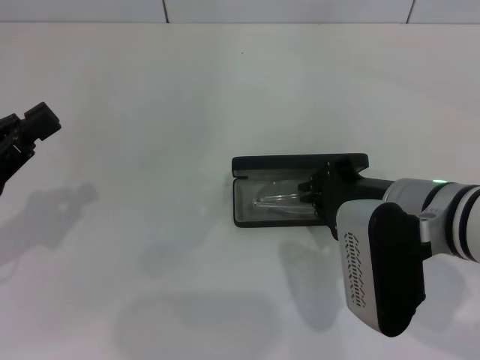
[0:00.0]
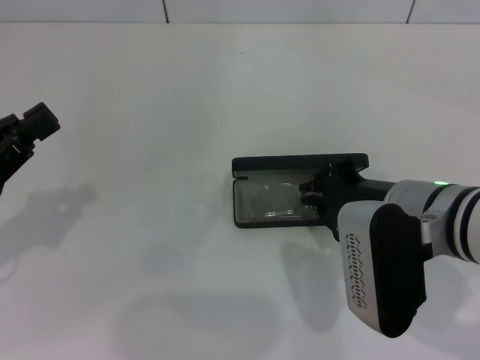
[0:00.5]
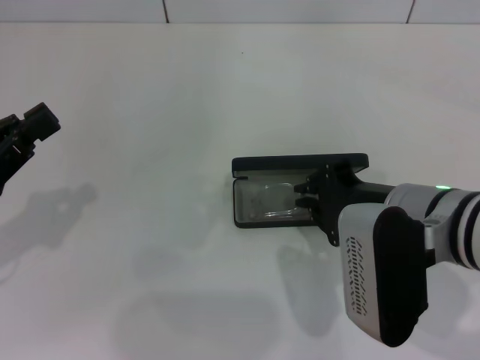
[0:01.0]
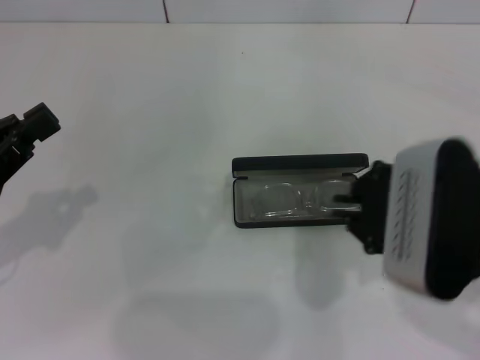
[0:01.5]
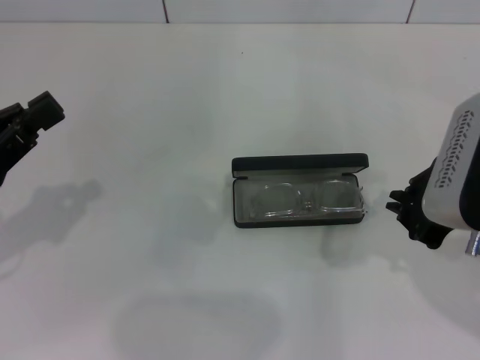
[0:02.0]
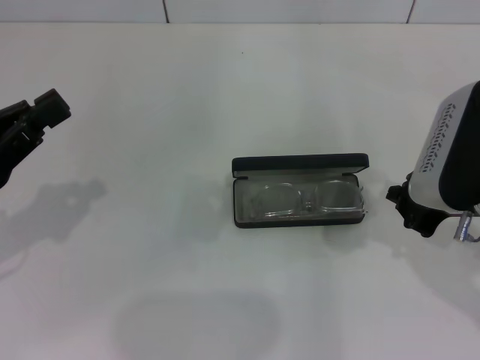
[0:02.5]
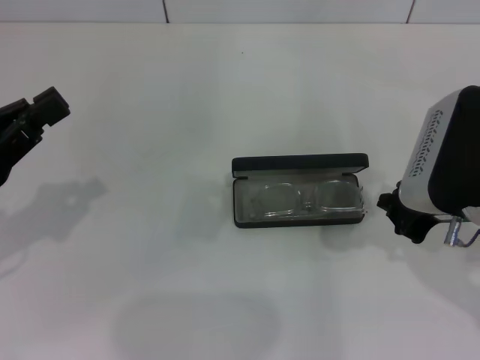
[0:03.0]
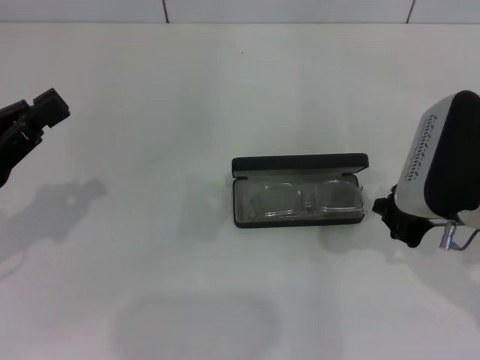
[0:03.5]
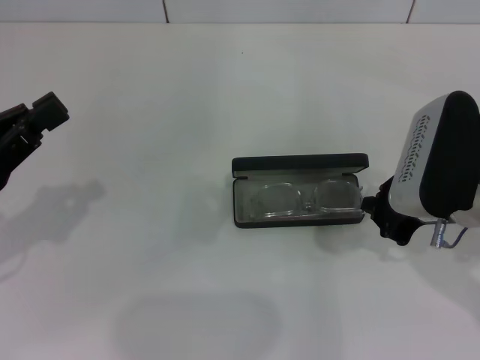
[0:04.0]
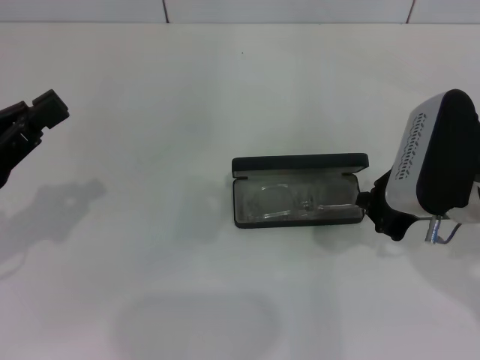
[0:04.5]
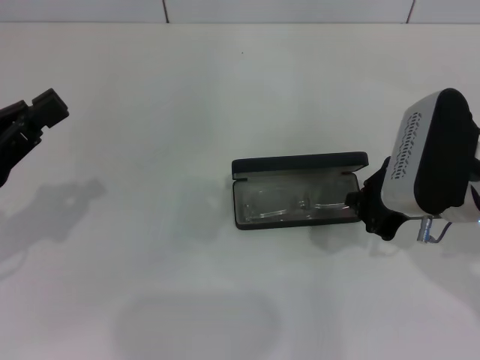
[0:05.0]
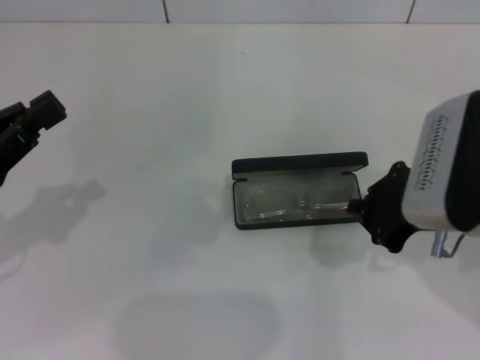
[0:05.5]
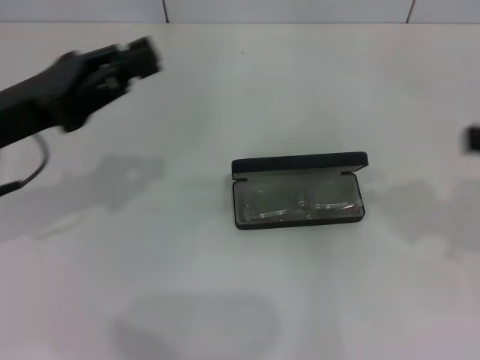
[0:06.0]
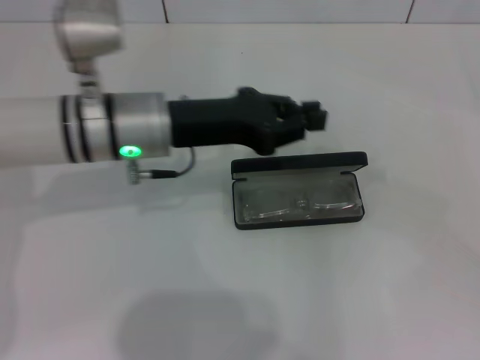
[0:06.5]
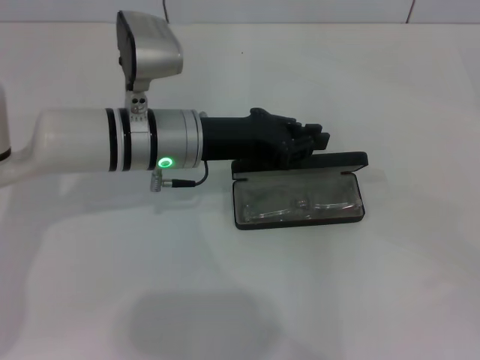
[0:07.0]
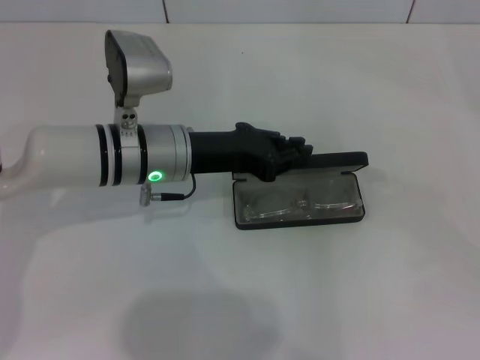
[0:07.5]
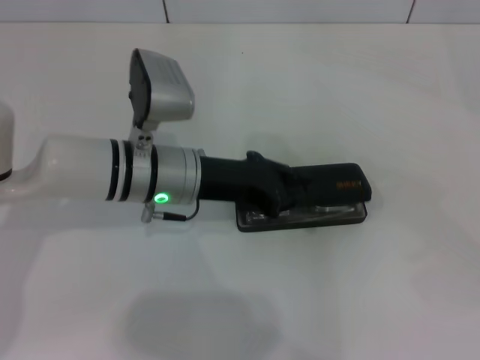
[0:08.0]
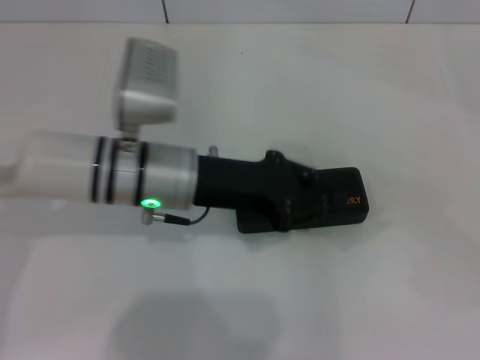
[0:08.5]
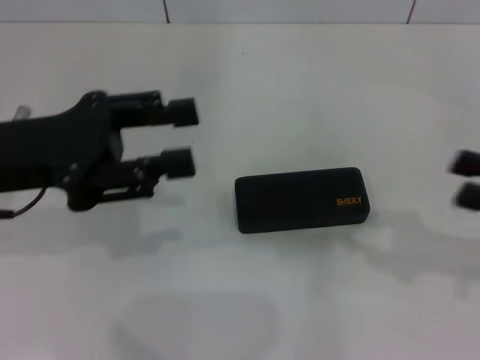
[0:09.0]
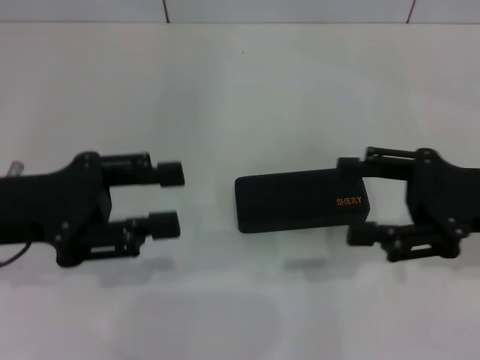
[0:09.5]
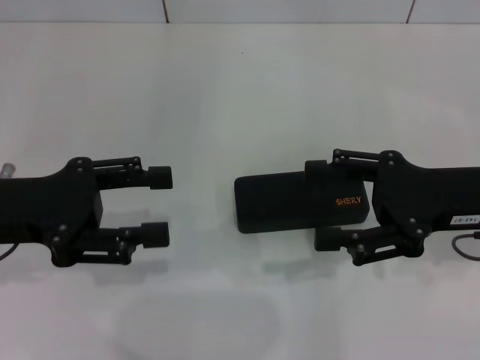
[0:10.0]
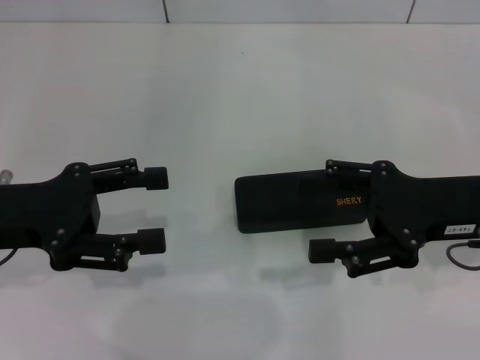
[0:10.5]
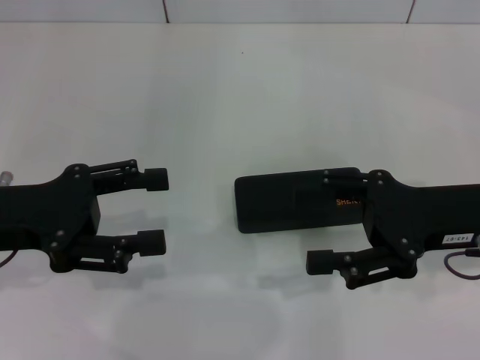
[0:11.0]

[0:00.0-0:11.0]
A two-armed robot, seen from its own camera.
Step, 0:01.5 to 0:08.0: Close the glasses case with your left hand.
0:00.0 to 0:02.0: The right gripper shifts some 10 cm to the right and upward.
0:02.0 to 0:05.5: The grippers make only small movements.
0:05.5 to 0:07.5: The right gripper moves to the right, about 25 cm. The left gripper goes about 25 cm to the right and forward.
0:07.5 to 0:09.0: The right gripper shifts approximately 15 cm to the left and forward, while the left gripper moves to the left, upward and backward, approximately 15 cm.
0:09.0 to 0:11.0: The left gripper changes place by about 5 cm, and opens. The right gripper moves to the left, approximately 10 cm, and opens up.

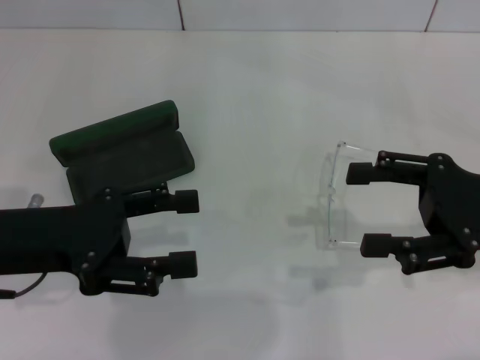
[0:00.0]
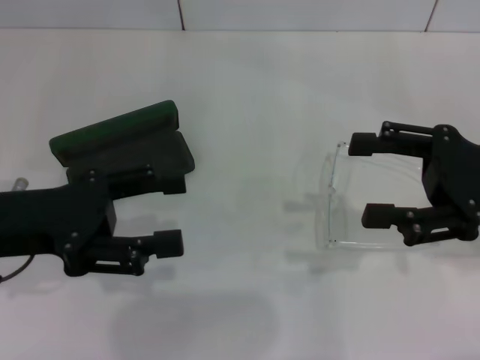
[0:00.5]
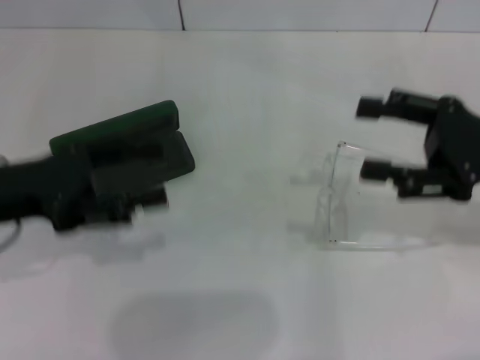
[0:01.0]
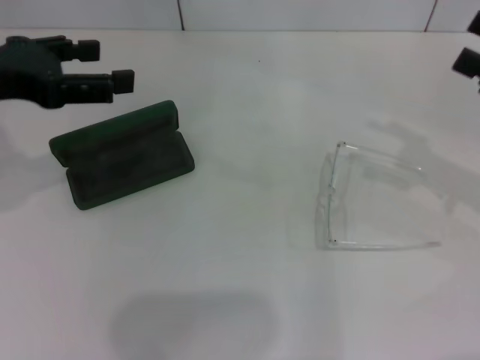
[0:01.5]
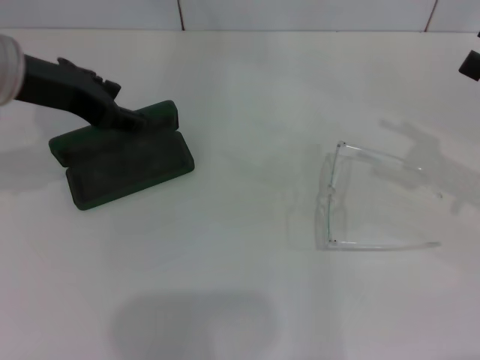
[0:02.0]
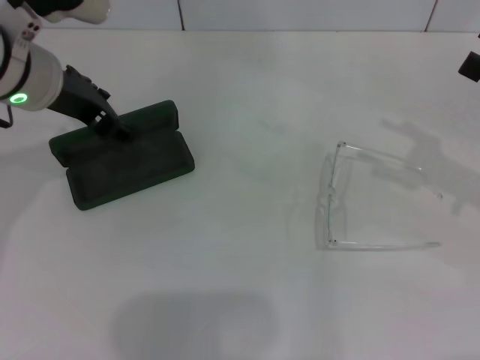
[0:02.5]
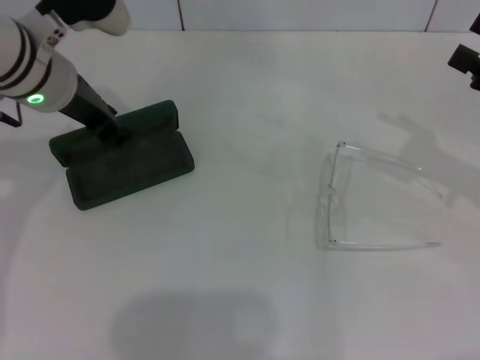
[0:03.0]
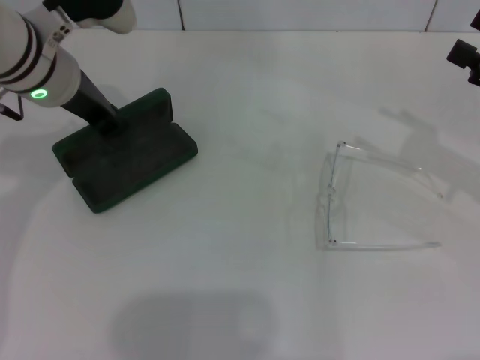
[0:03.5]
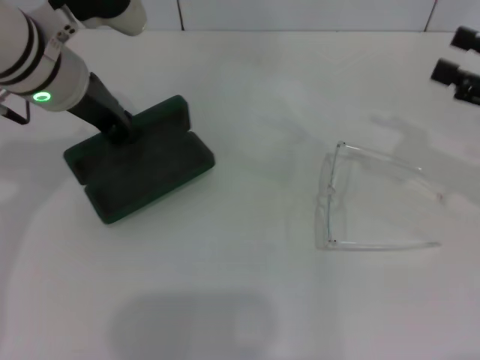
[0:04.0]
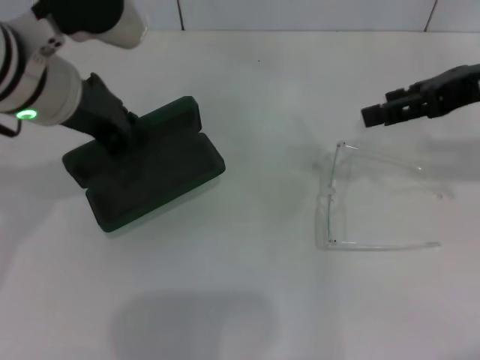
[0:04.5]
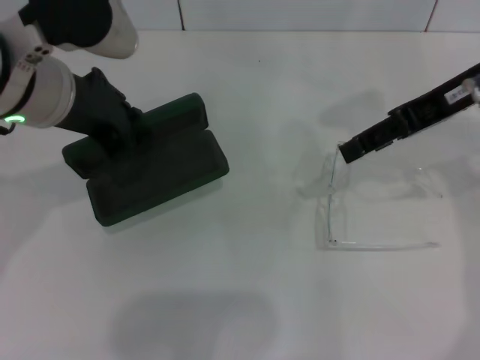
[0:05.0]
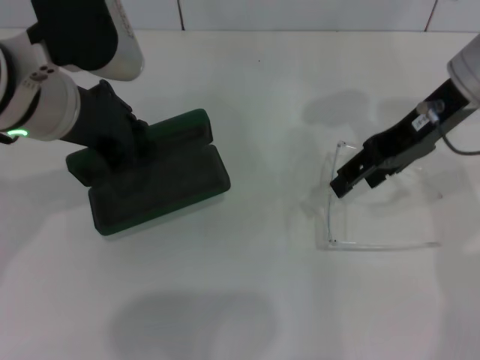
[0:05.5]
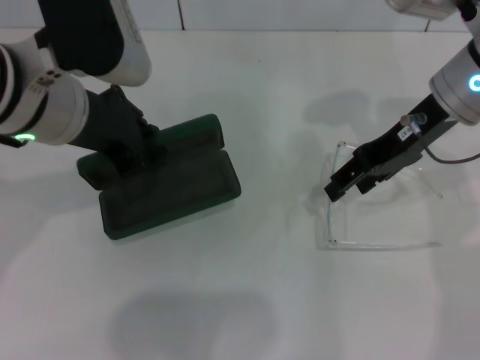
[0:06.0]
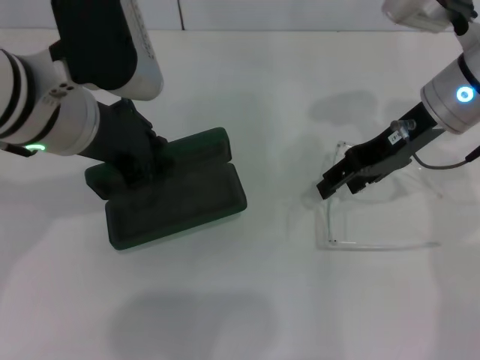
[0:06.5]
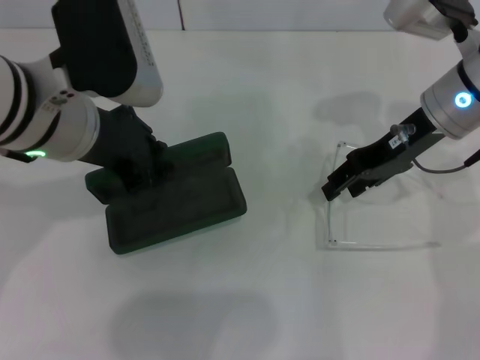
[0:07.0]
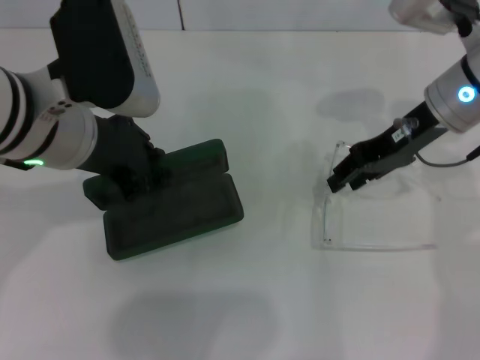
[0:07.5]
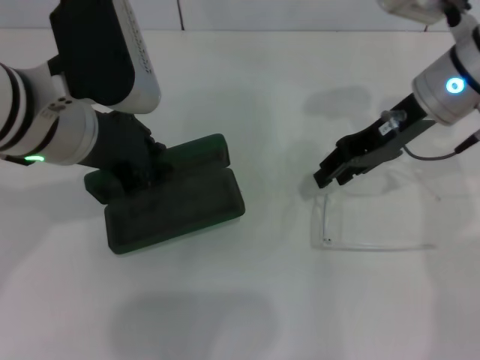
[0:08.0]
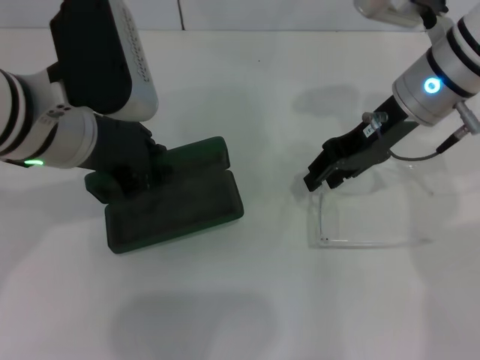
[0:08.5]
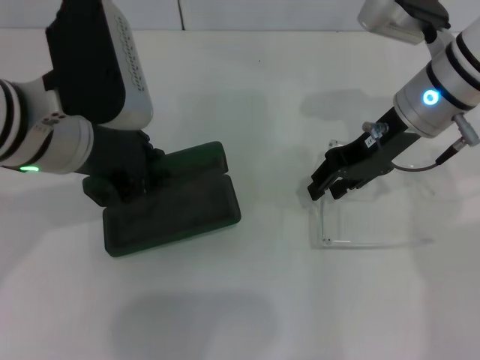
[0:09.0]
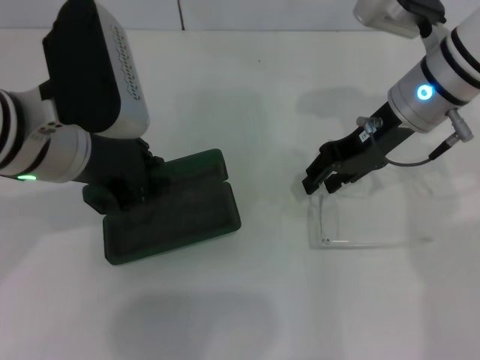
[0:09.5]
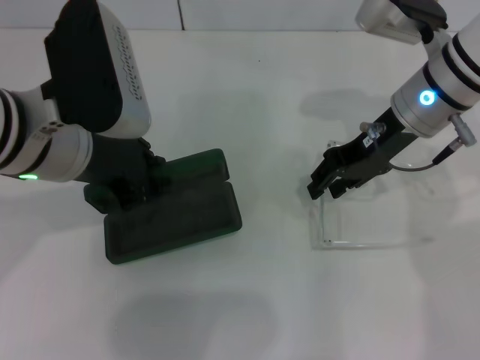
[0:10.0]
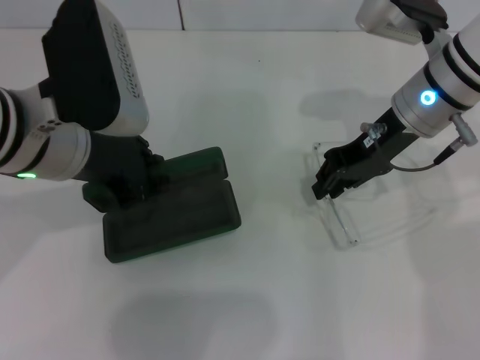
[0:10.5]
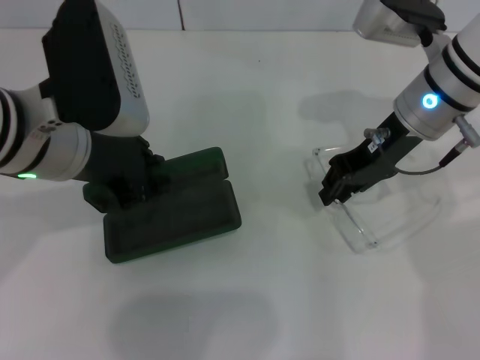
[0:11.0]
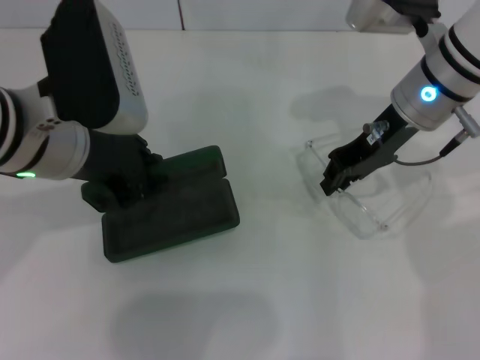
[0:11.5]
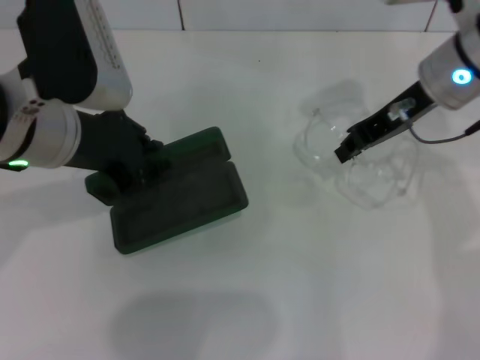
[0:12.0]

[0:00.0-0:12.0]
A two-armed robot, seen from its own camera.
Step, 0:00.0 to 0:03.0: Grab the glasses case with your left hand.
Step, 0:04.0 to 0:11.0: Grab the eyeglass frame with your right hand.
0:00.0 to 0:02.0: The right gripper is displaced to the right by roughly 10 cm, while the left gripper heads forward and upward, covering roughly 15 cm.
0:02.0 to 0:04.0: The left gripper travels to the right by some 5 cm, and closes its fingers.
0:04.0 to 0:06.0: The left gripper heads backward, covering roughly 5 cm. Meanwhile the right gripper heads to the left and forward, covering roughly 15 cm.
0:06.0 to 0:08.0: The right gripper closes.
0:08.0 to 0:12.0: The grippers stay close to where they were, moving slightly.

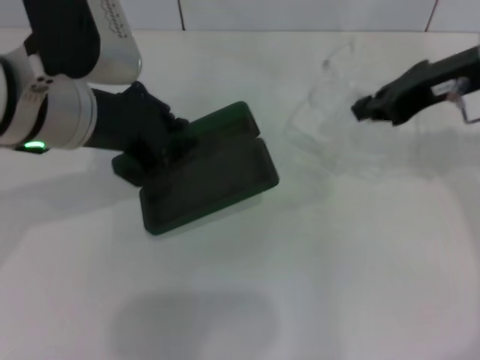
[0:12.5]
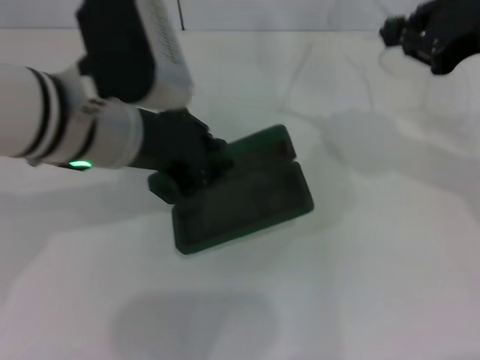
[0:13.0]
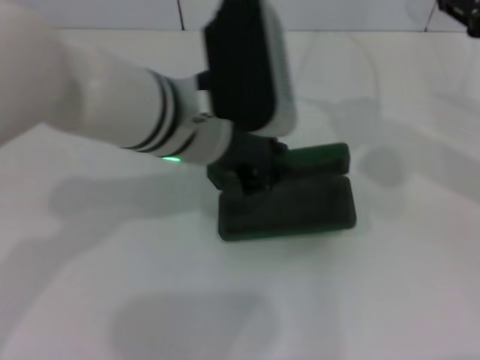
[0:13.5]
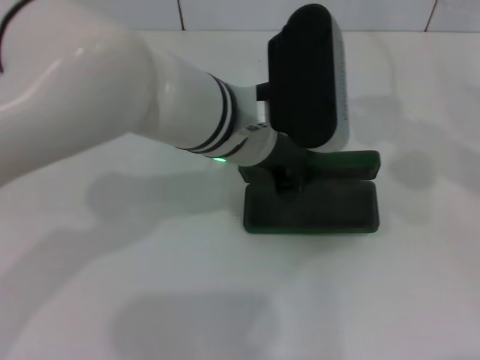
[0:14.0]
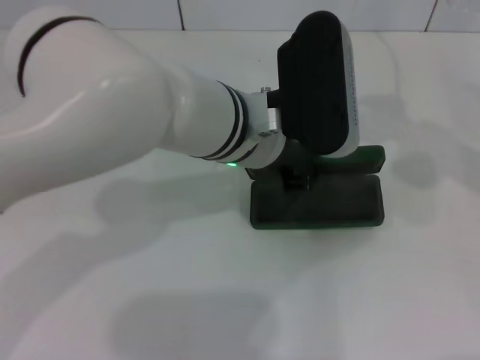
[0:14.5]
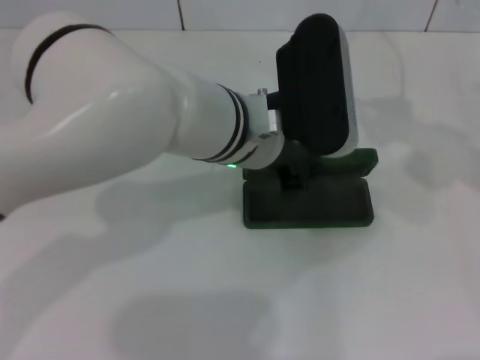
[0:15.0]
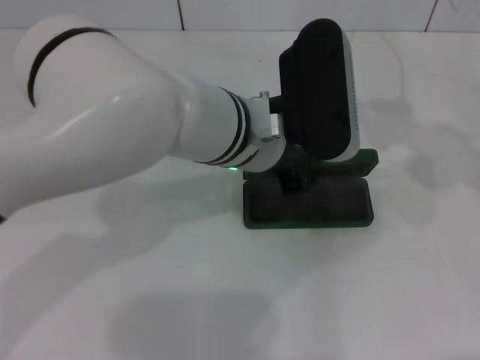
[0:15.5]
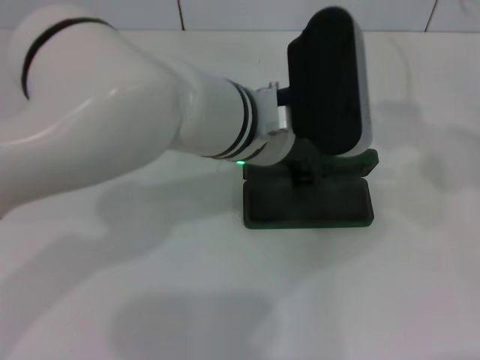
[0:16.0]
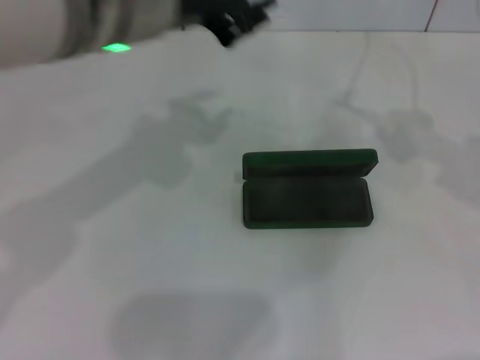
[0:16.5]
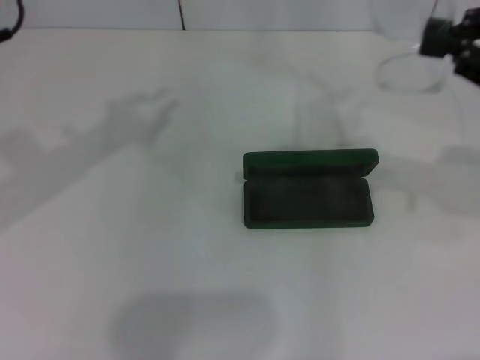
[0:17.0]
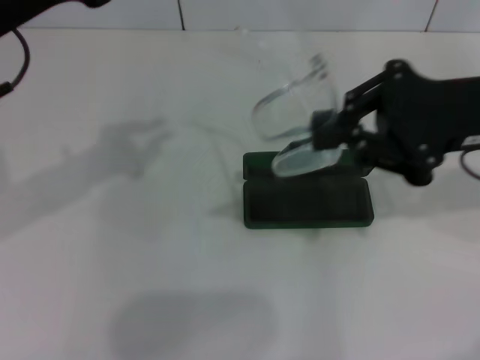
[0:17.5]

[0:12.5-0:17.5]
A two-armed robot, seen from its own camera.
Step, 0:12.5 to 0:15.0: Place the glasses case in the center of the table with your left hand.
0:12.5 to 0:15.0: The right gripper shifts roughly 10 cm to the right and backward. Meanwhile the left gripper travels to the right by about 15 cm.
0:15.0 to 0:17.5: The right gripper shifts about 10 cm to the left and downward. The left gripper moves to the left and upward, about 20 cm.
